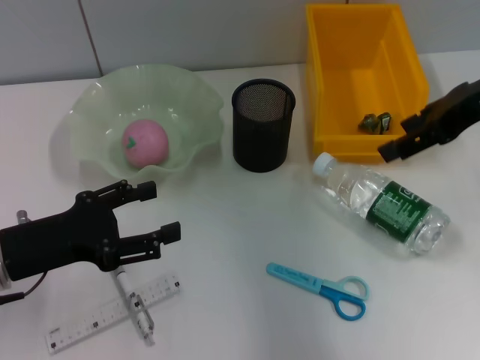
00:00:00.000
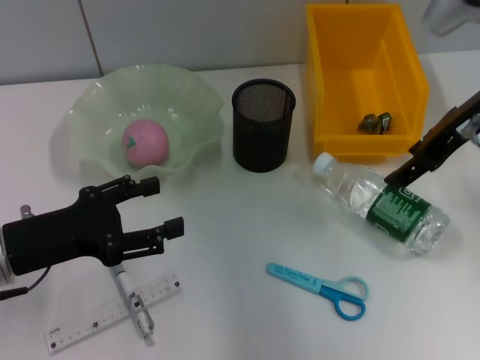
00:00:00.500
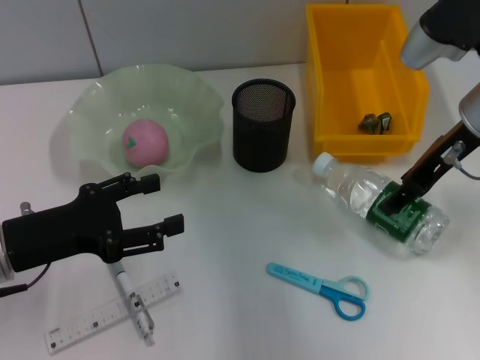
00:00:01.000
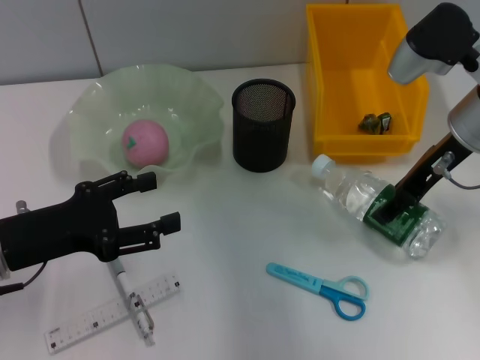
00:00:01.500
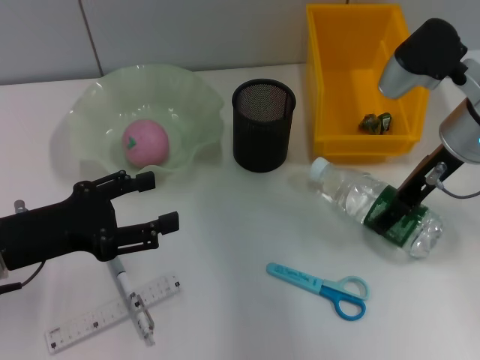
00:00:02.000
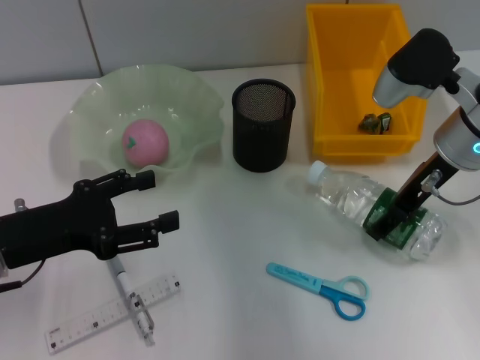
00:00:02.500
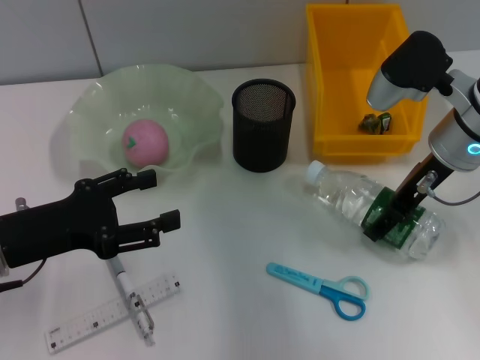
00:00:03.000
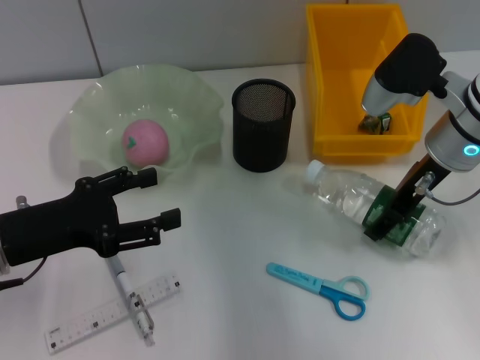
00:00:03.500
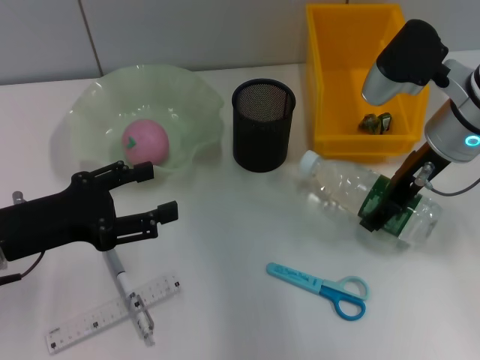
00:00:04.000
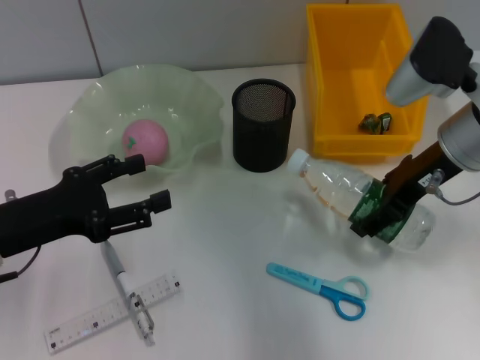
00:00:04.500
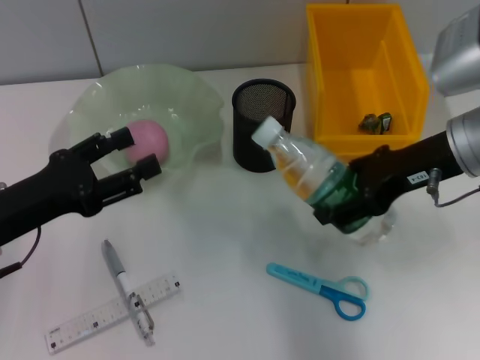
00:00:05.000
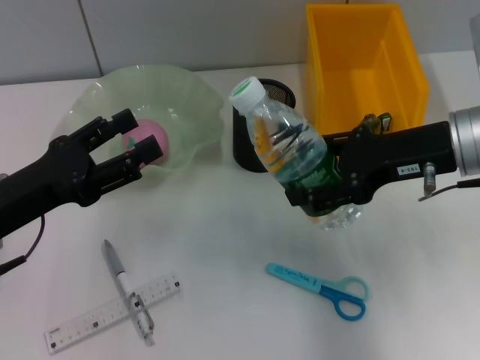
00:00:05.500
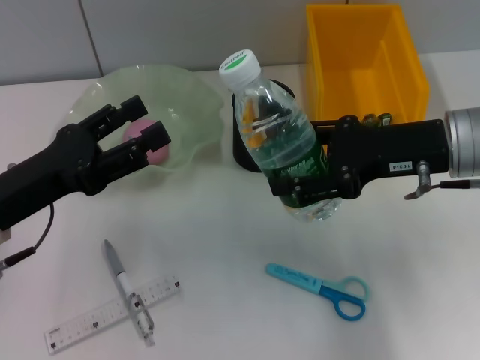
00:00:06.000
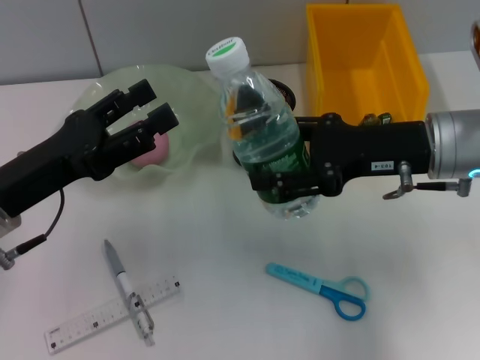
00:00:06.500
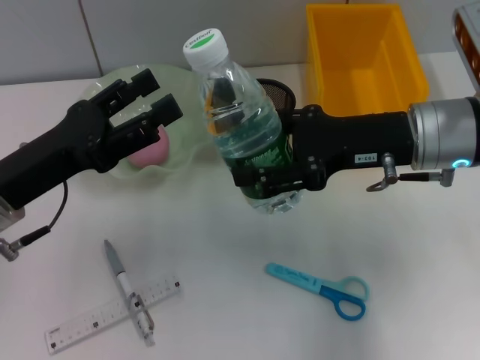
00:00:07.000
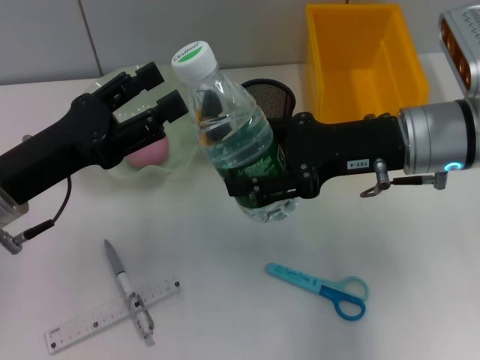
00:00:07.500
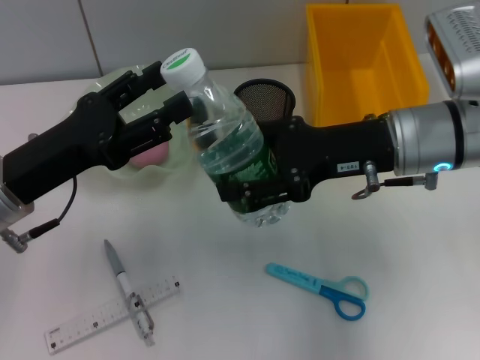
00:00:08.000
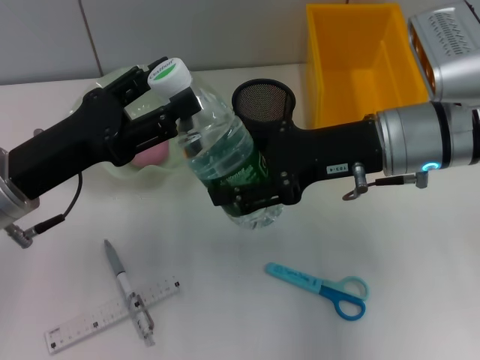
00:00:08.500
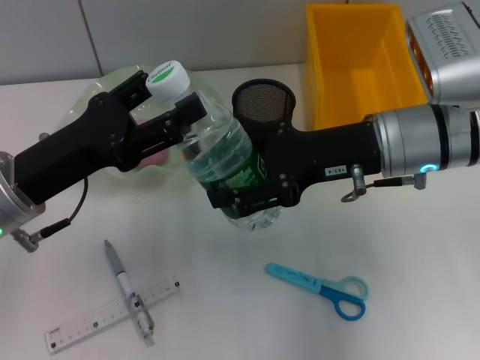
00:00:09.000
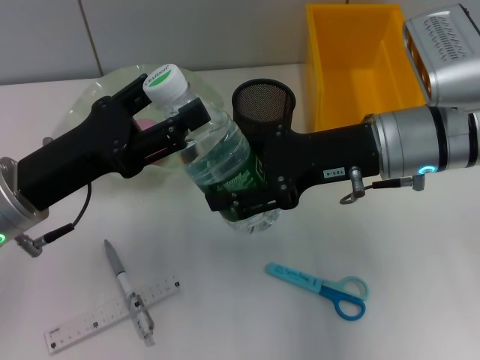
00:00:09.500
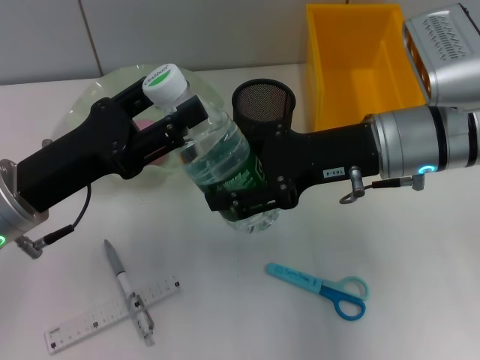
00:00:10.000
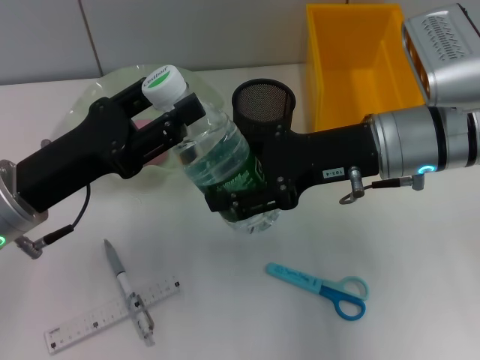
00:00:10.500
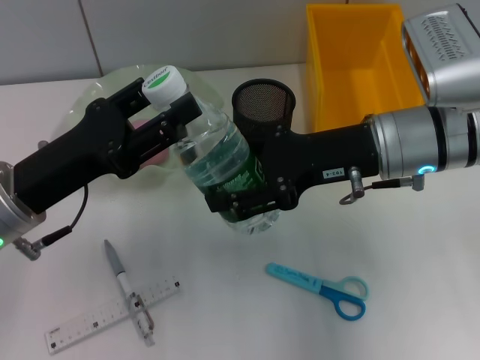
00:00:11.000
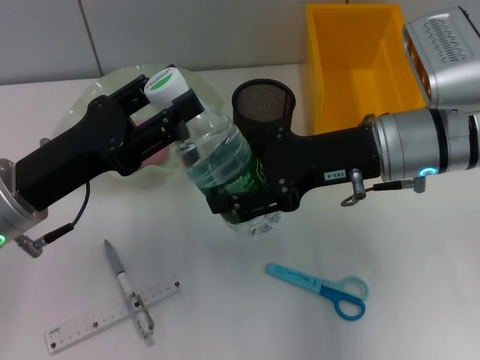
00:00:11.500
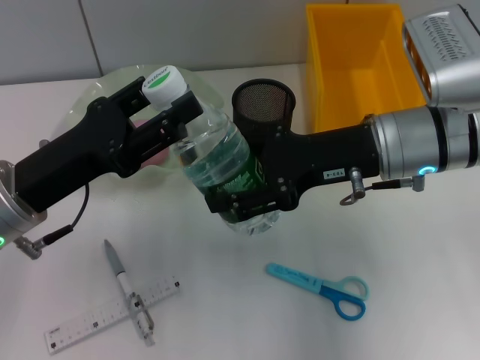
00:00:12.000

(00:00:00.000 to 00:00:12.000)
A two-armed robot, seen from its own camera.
Step, 00:00:00.000 - 00:00:02.000: Grab the water bottle with the right hand.
00:00:00.000 - 00:00:02.000: The right gripper travels downward by about 10 cm.
00:00:02.000 - 00:00:04.000: The grippers move only a little.
00:00:04.000 - 00:00:06.000: The right gripper travels backward by about 5 cm.
00:00:08.000 - 00:00:12.000: Neither gripper changes place.

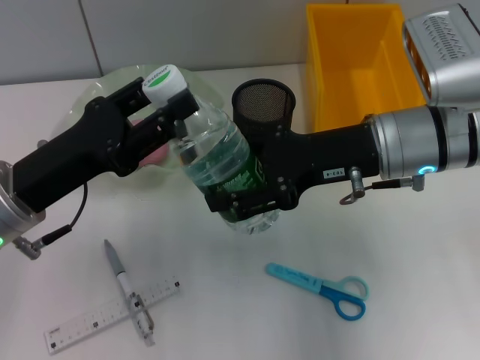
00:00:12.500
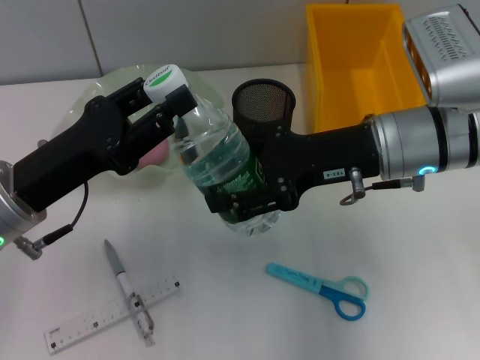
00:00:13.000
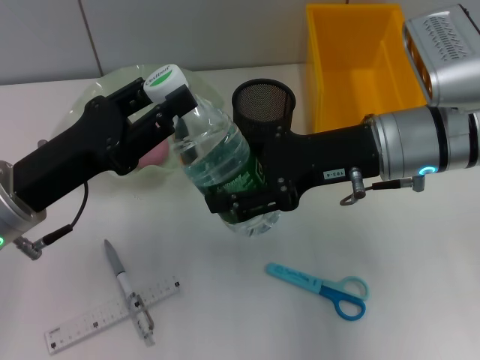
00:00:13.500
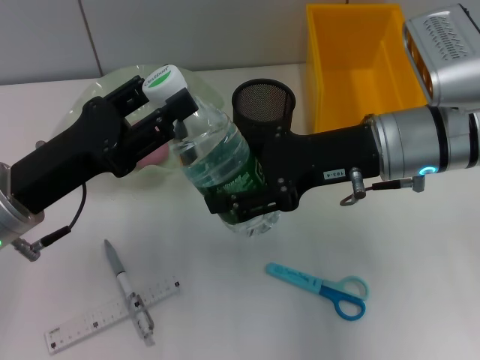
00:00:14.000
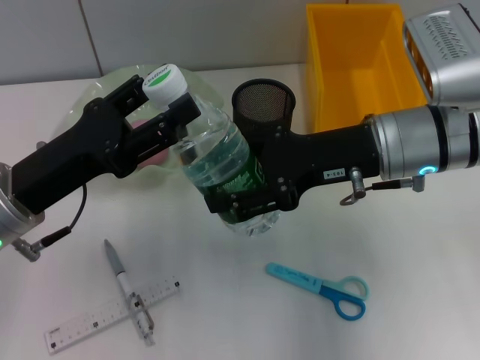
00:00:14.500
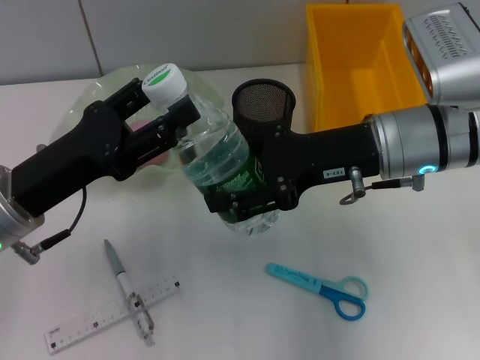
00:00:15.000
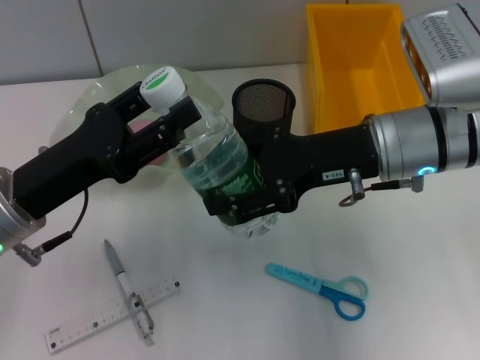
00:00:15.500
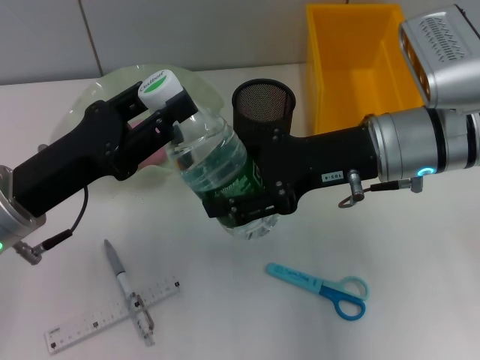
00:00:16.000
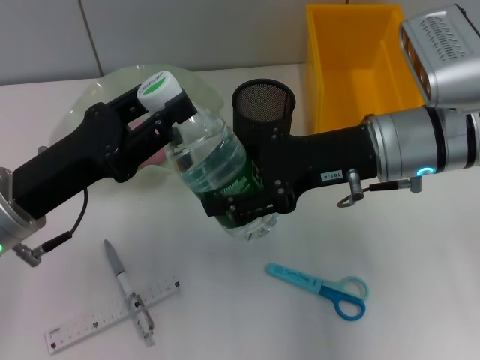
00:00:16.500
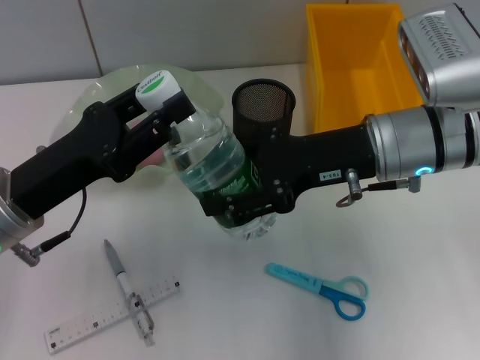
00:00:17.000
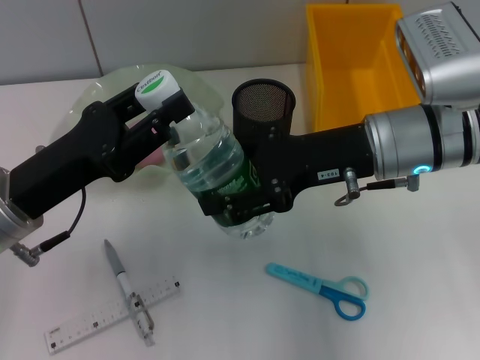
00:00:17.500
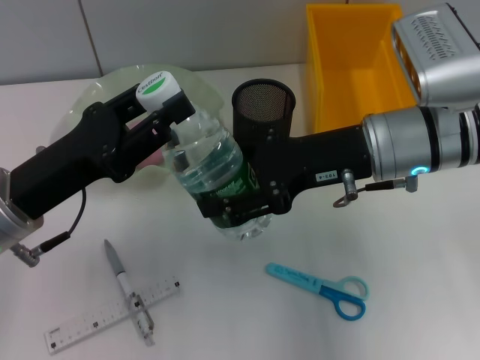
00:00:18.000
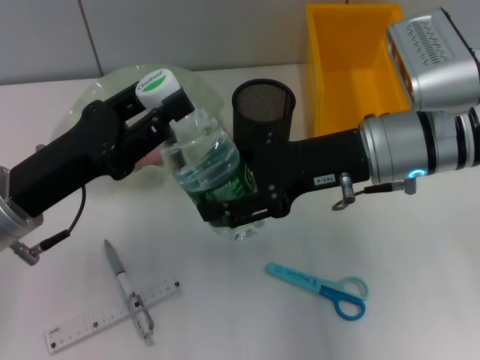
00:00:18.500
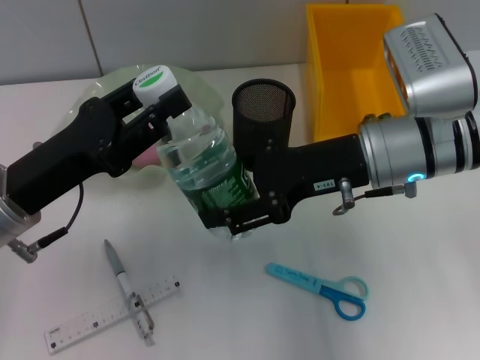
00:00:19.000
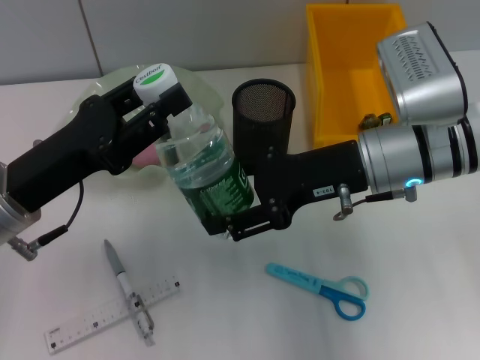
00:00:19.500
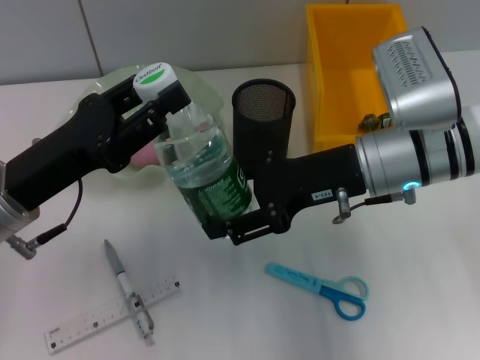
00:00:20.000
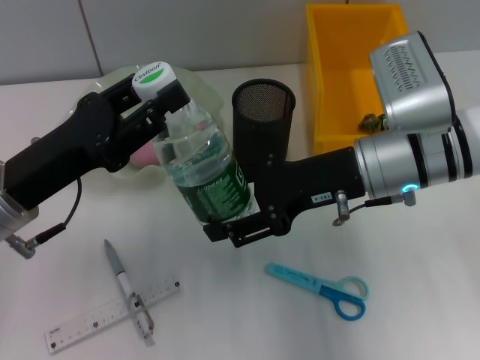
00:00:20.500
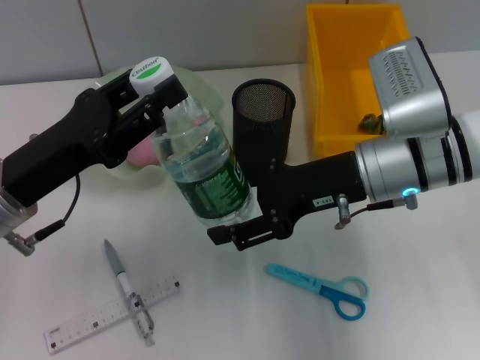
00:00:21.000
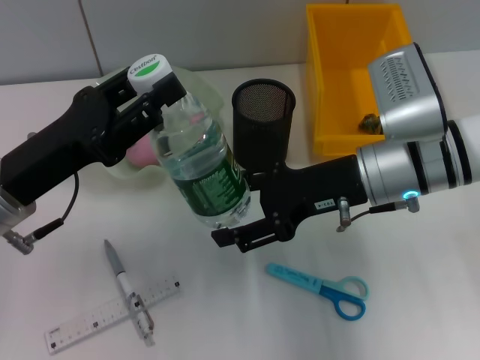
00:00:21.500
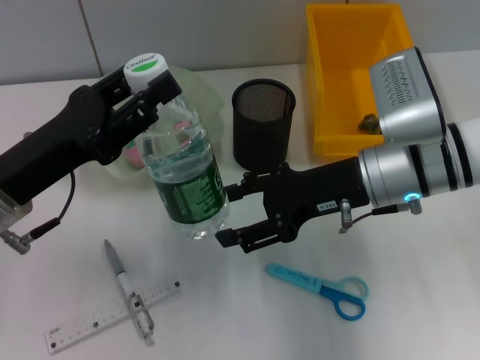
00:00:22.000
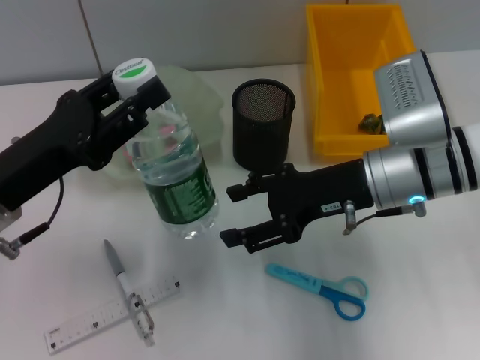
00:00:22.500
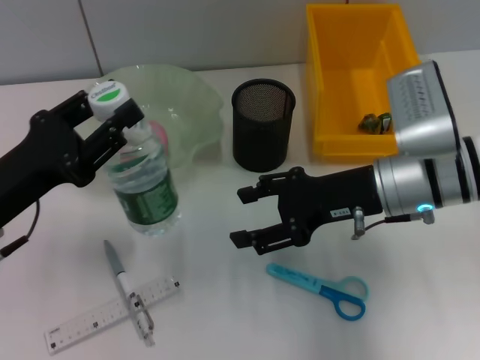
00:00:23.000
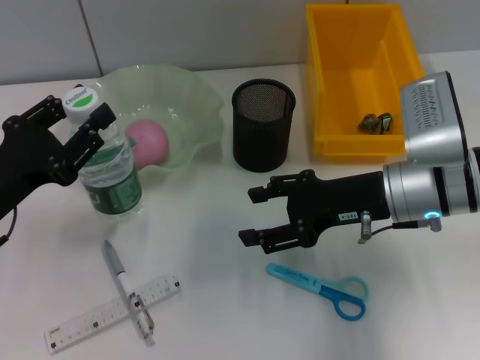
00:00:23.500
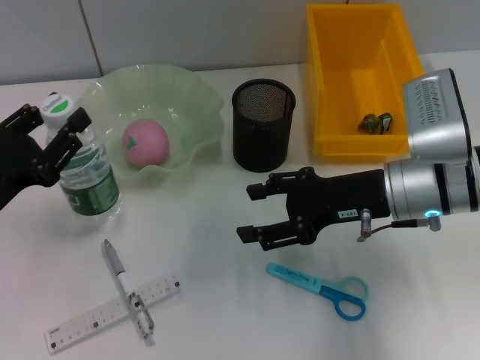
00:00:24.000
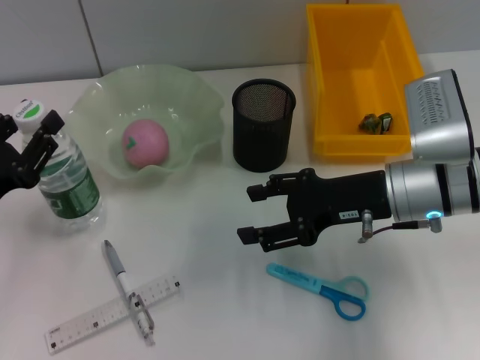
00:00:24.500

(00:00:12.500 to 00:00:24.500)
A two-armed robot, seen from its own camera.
Step, 00:00:12.500 - 00:00:21.500: Pass the water bottle from the right hand to the left hand.
00:00:12.500 - 00:00:14.500: The left gripper opens.
00:00:14.500 - 00:00:16.500: The left gripper closes its fingers.
00:00:16.500 - 00:00:18.500: Both grippers stay put.
00:00:18.500 - 00:00:22.500: The grippers stay close to where they were, moving slightly.
00:00:22.500 - 00:00:24.500: The left gripper heads to the left and downward, covering some 10 cm.

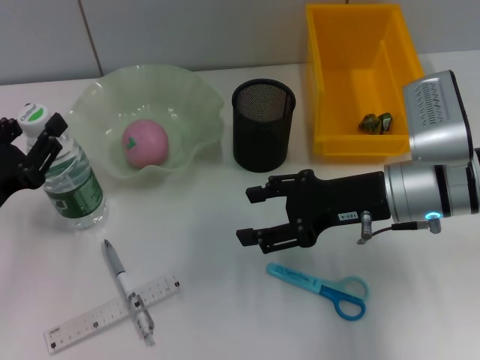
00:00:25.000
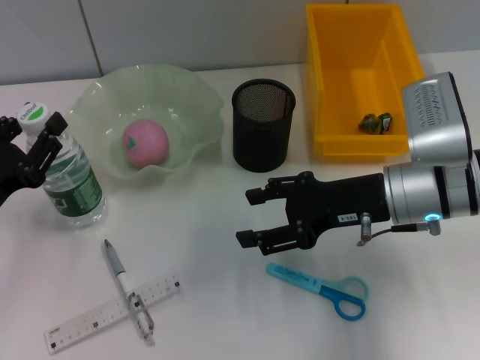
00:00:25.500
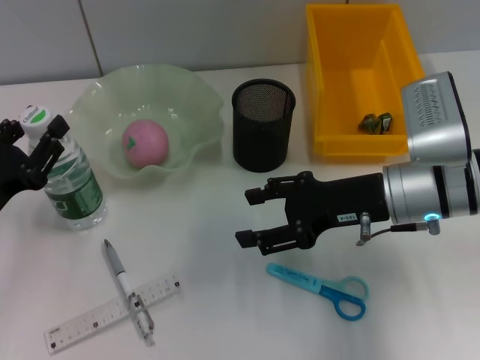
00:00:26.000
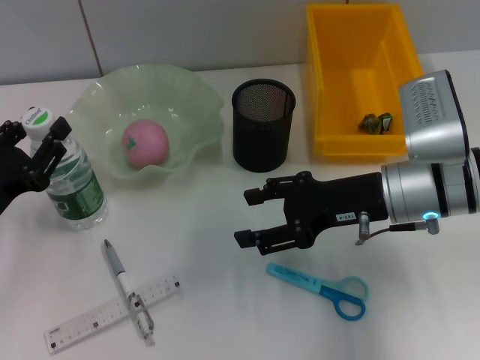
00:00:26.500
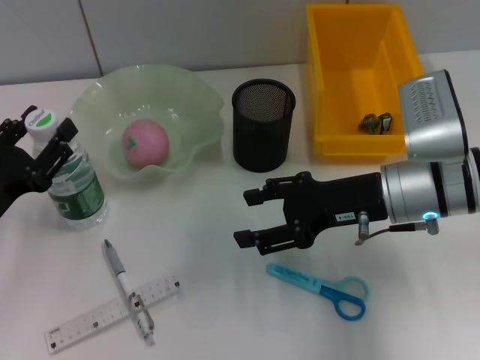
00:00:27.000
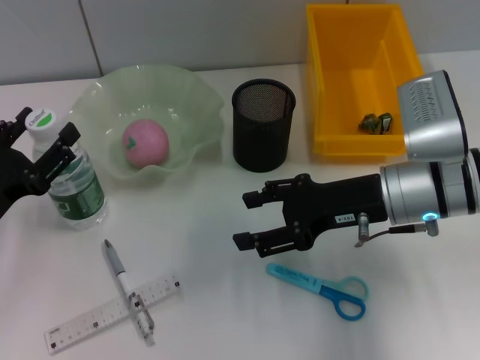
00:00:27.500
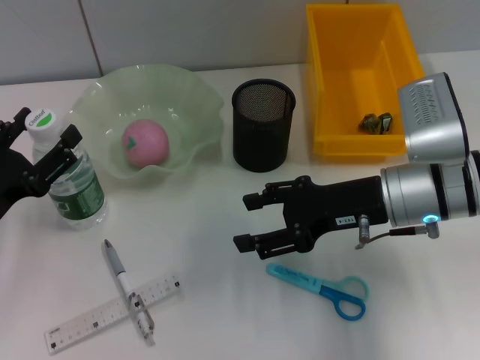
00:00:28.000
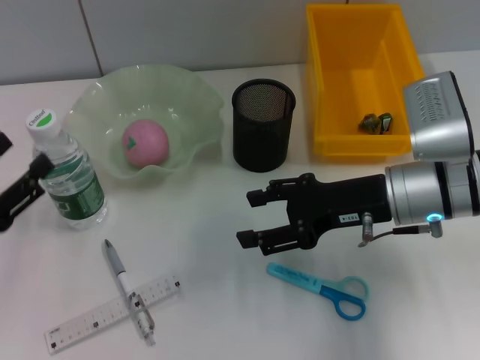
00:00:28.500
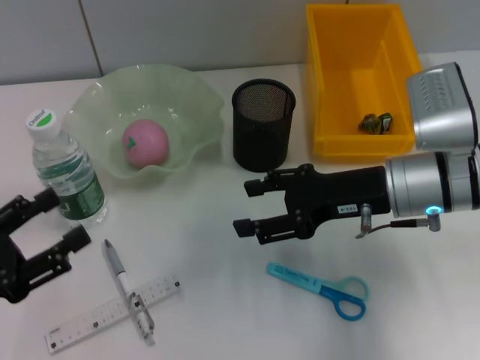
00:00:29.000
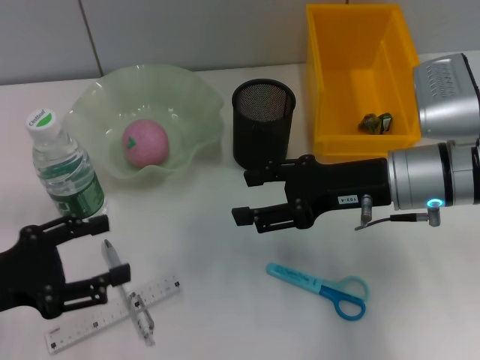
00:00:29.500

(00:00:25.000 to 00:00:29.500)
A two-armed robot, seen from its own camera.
Step, 00:00:25.000 - 00:00:27.500: Place the water bottle on the table with the left hand.
00:00:25.000 - 00:00:27.000: Both grippers stay about where they are.
00:00:27.000 - 00:00:29.500: The left gripper changes place by roughly 5 cm.
